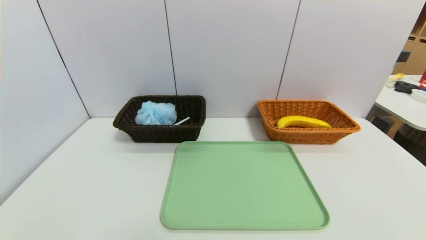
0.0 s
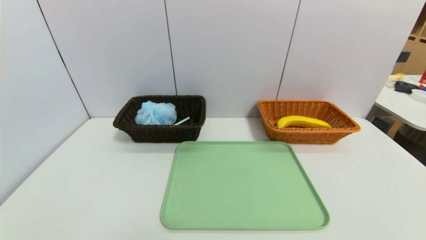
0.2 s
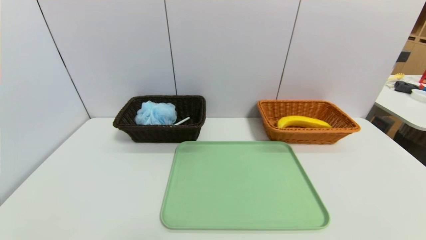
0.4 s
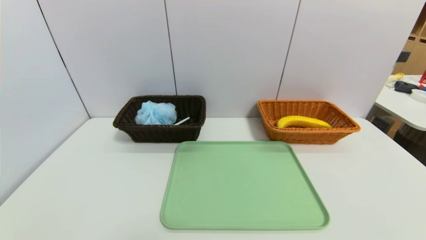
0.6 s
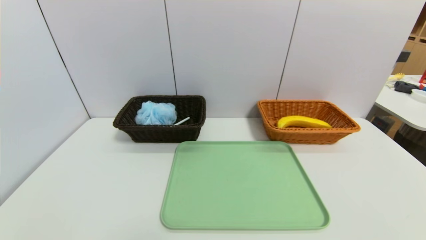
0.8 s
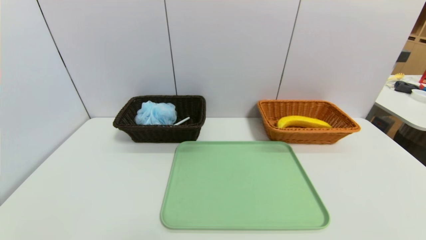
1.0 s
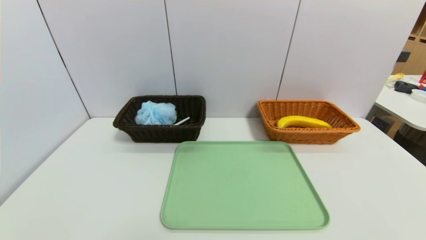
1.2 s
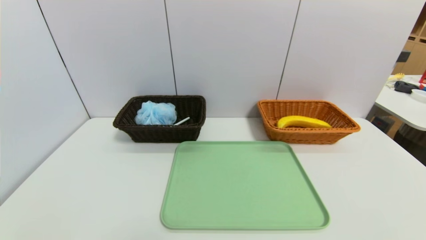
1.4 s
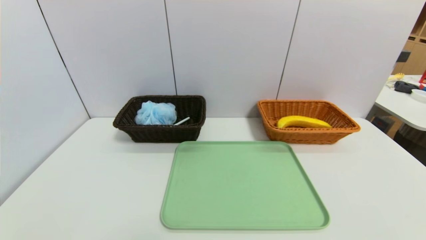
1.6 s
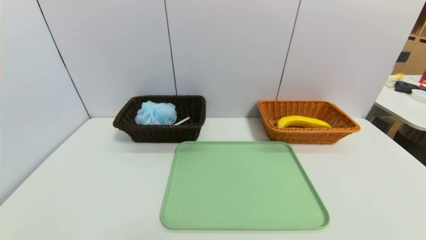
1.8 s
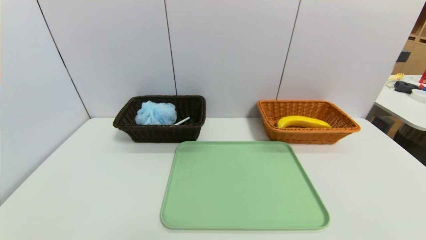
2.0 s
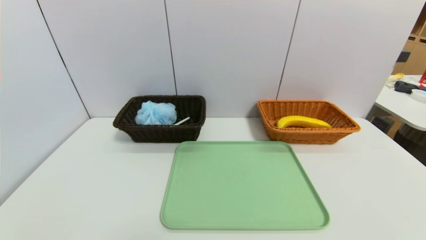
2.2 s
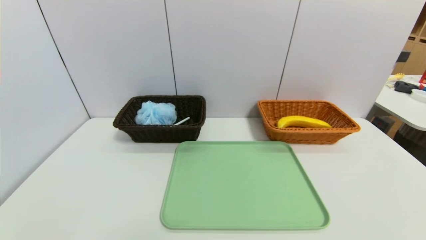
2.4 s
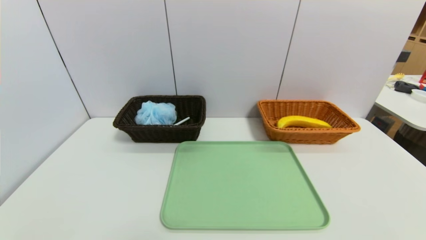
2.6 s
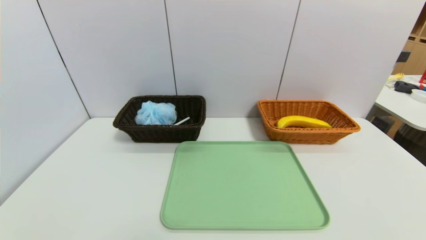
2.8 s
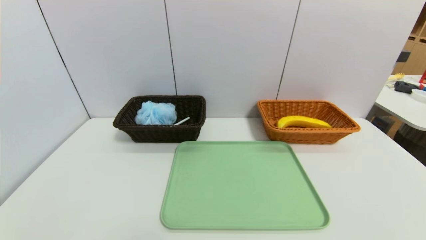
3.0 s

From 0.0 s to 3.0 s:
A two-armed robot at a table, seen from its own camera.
Task of the whole recording: place the food in the right basket with the right gripper, and place the non food items in the left basket with the left gripper.
From 0.0 s to 3.0 s: Both grippers stay about where they are.

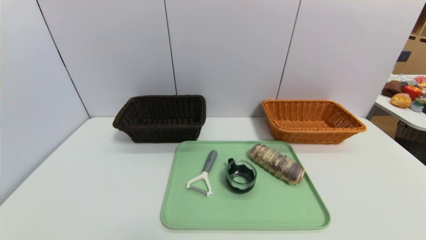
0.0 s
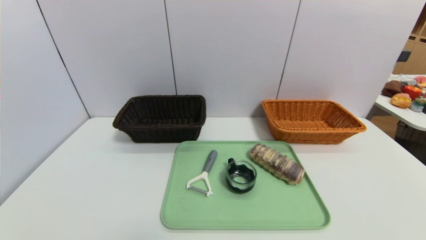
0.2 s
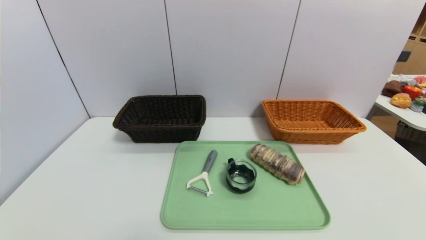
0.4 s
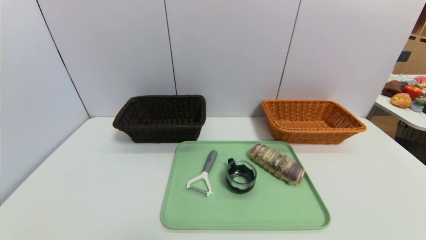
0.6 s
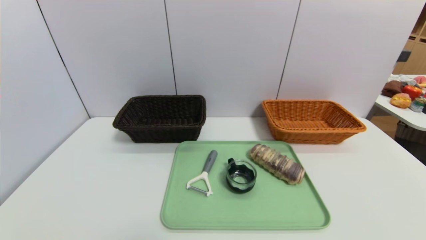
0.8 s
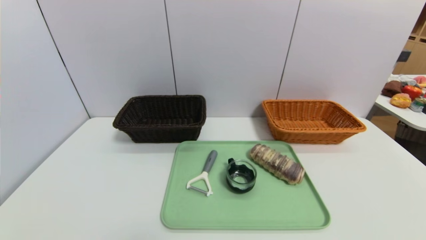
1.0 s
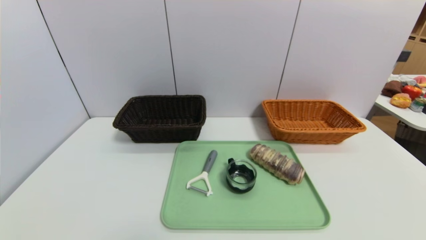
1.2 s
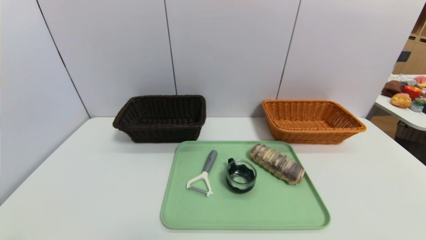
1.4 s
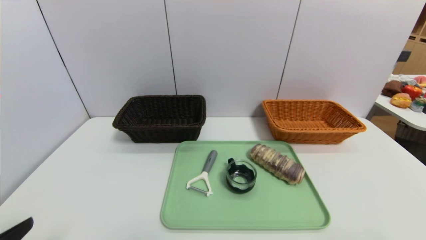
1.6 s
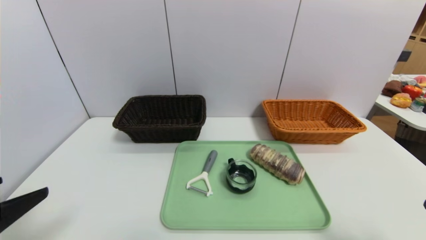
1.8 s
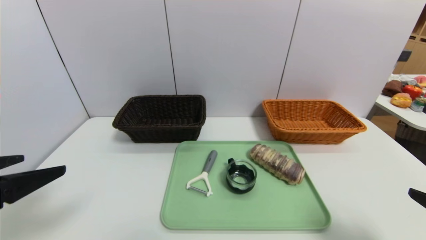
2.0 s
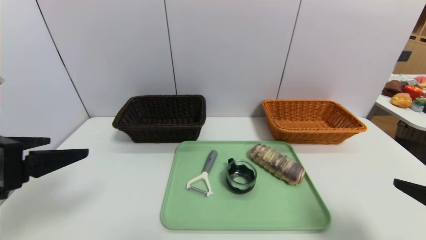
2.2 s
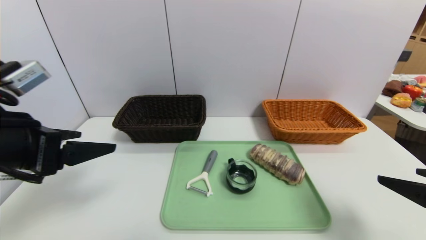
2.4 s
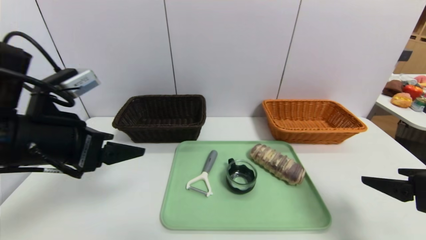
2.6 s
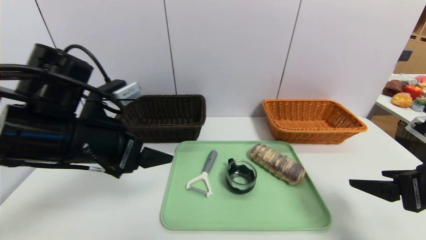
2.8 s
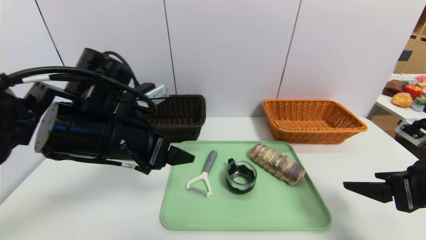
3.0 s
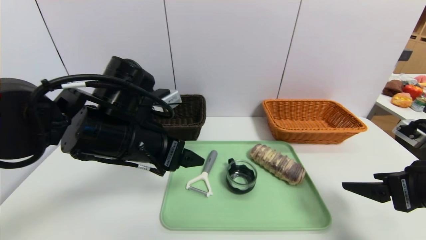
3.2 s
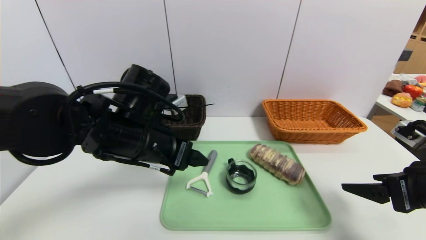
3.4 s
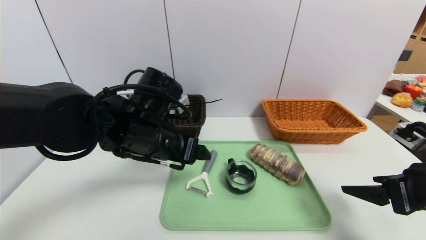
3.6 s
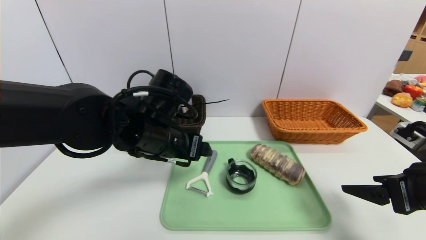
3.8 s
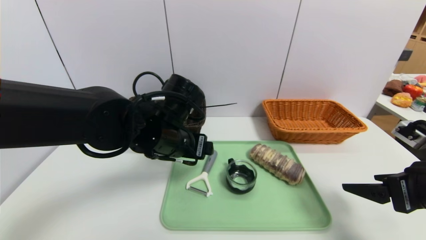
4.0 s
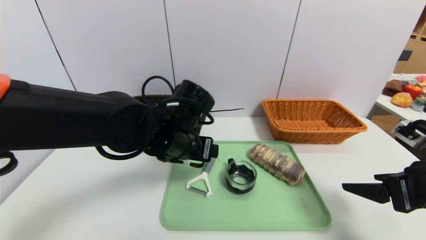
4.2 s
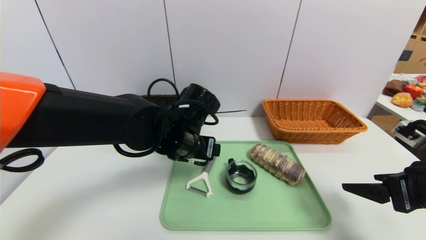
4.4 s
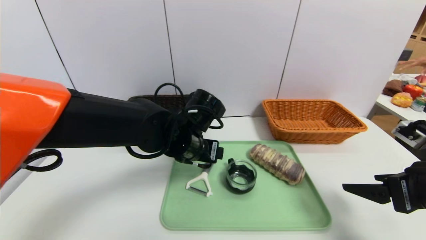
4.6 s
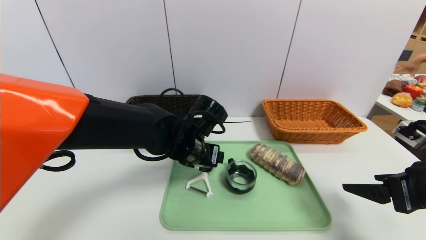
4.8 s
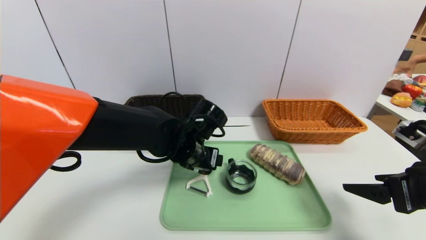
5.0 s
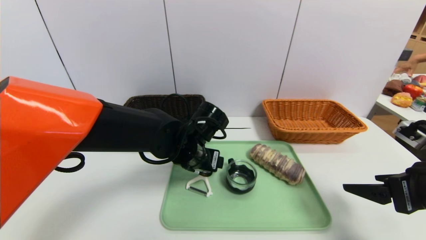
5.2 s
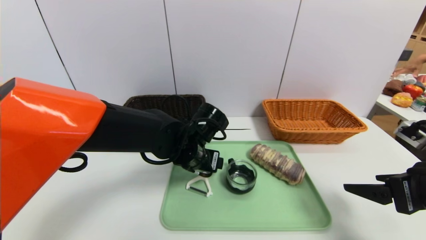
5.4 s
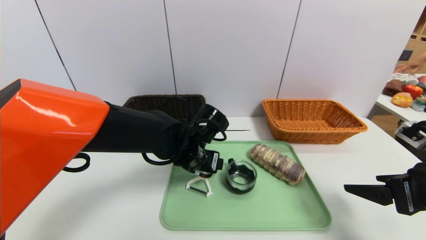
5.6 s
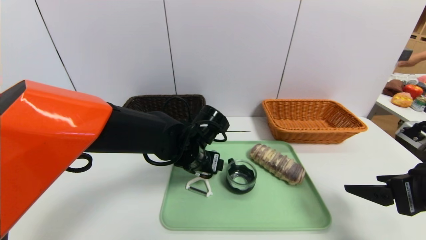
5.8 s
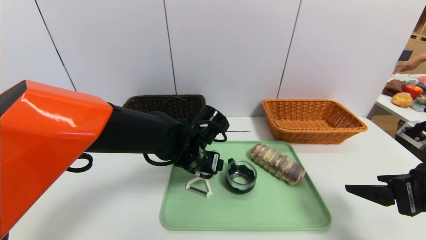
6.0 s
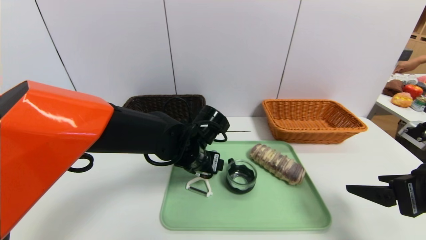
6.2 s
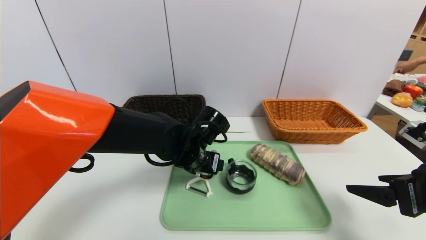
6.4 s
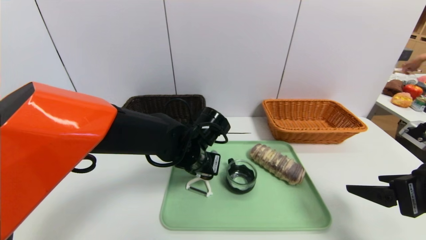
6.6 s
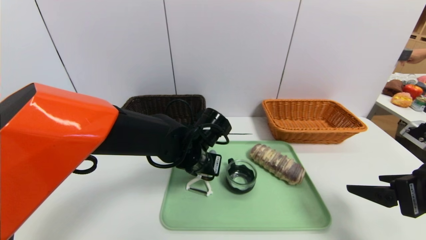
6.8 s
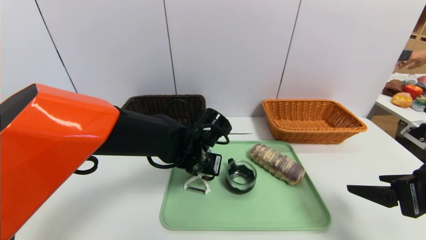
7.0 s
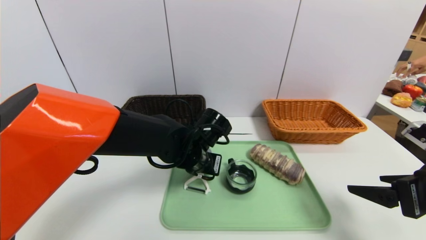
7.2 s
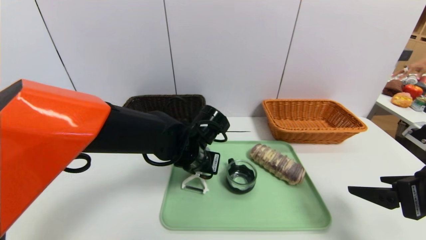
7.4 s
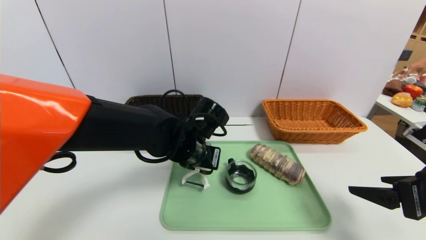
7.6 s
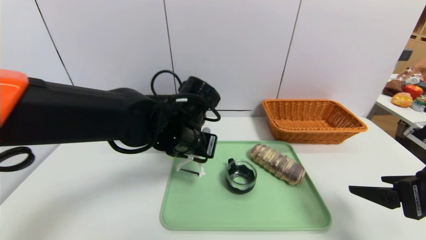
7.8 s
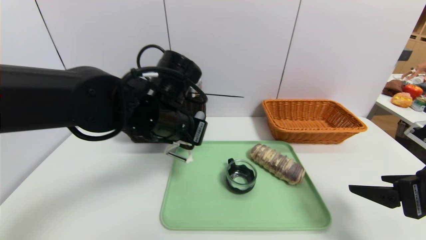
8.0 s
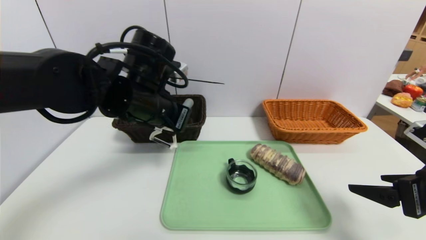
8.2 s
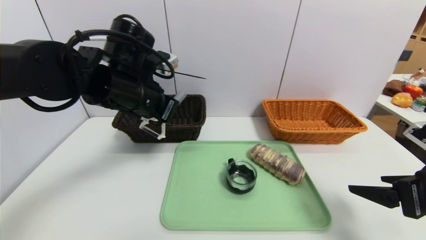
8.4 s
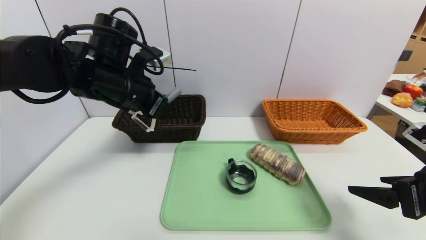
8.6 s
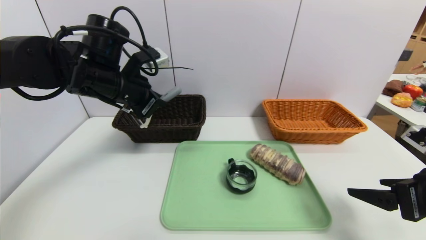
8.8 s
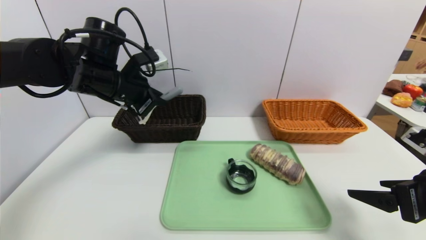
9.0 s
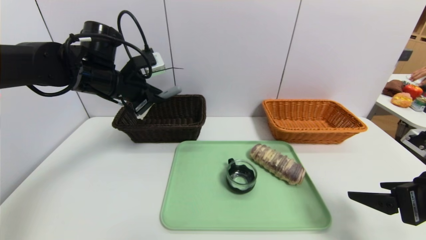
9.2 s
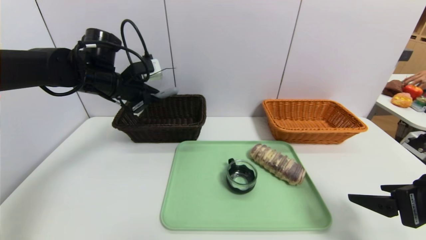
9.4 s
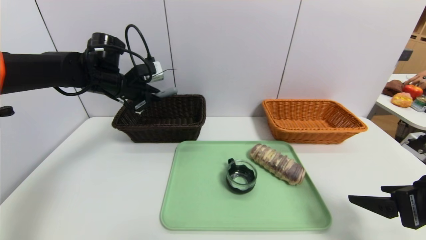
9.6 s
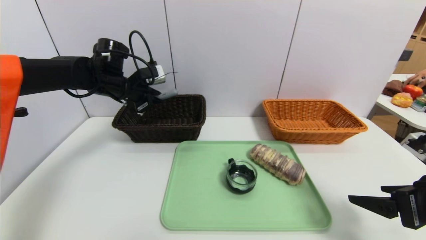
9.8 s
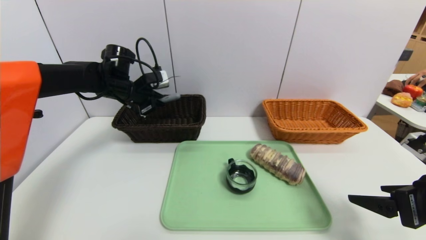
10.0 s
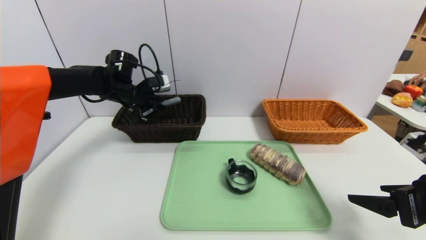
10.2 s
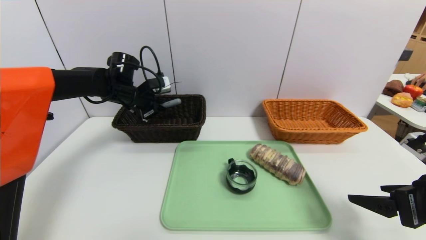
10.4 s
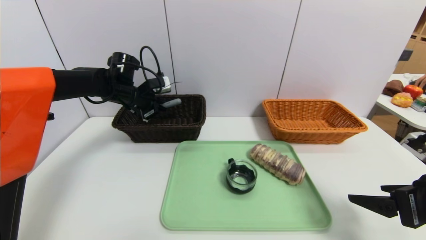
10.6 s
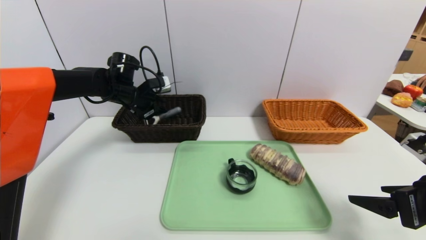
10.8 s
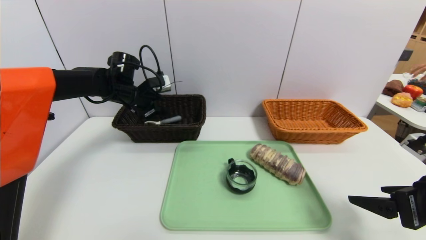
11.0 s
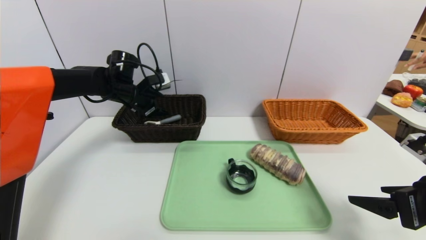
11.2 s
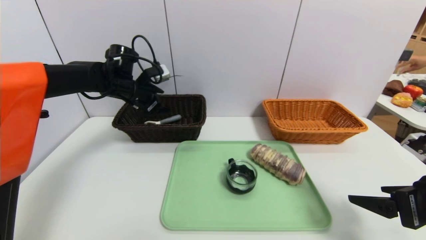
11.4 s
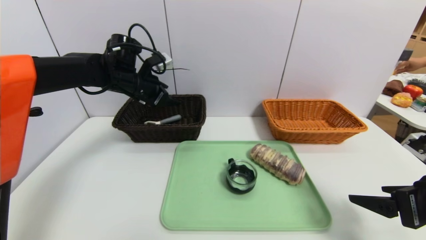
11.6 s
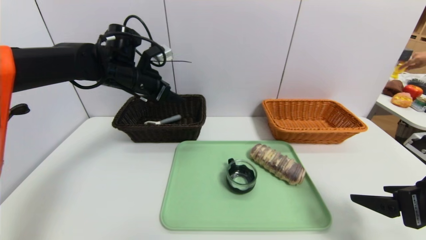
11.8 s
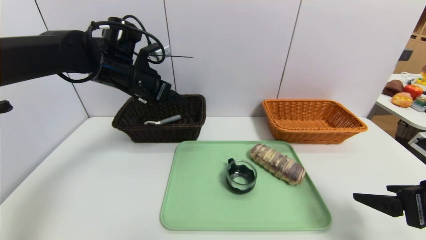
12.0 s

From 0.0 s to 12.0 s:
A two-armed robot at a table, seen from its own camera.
Task of the whole recording: place the food in the right basket with the right gripper, and place the non food items in the left basket with the left gripper.
Step, from 0.0 s to 11.0 s: Grasp the peeler and put it in the left basket.
From 1.6 s to 3.0 s: The right gripper goes about 15 cm forward; the left gripper heads forward and to the right, covering some 25 cm.
From 3.0 s to 4.4 s: The left gripper shifts roughly 15 cm to the right, forward and downward.
From 4.4 s to 6.0 s: The left gripper moves roughly 5 cm.
From 6.0 s to 7.6 s: The left gripper closes.
From 7.6 s to 9.0 s: The left gripper is displaced to the left and upward by some 20 cm.
From 9.0 s to 10.4 s: The left gripper is displaced forward and downward by roughly 15 cm.
From 10.4 s to 12.0 s: The left gripper is displaced backward and upward by roughly 10 cm, and opens.

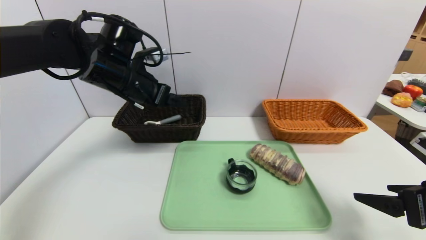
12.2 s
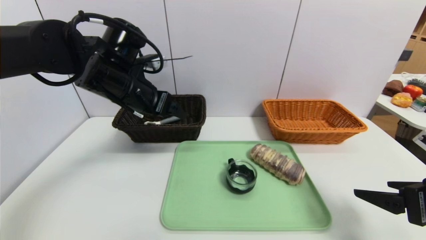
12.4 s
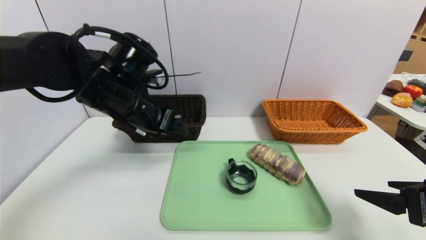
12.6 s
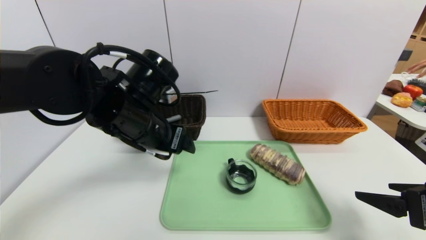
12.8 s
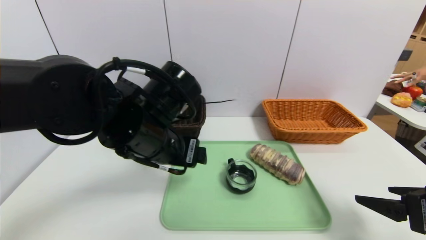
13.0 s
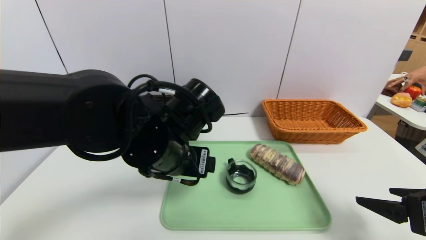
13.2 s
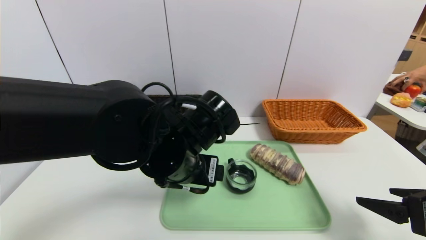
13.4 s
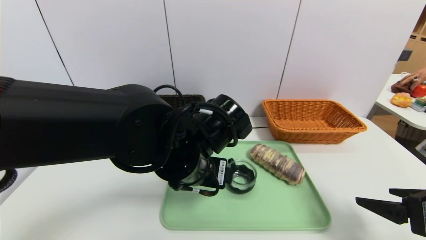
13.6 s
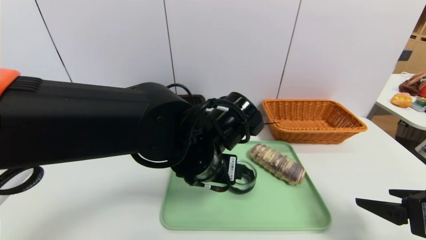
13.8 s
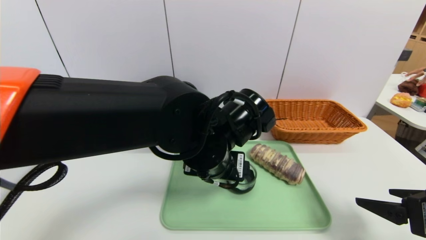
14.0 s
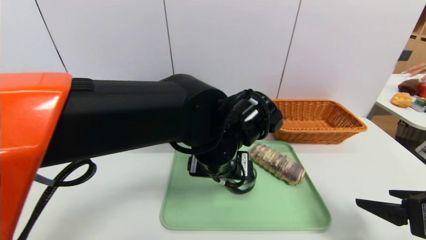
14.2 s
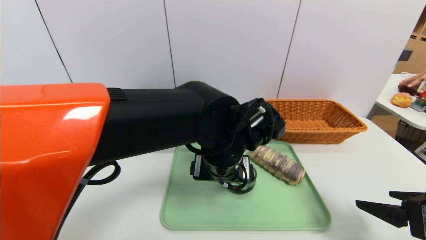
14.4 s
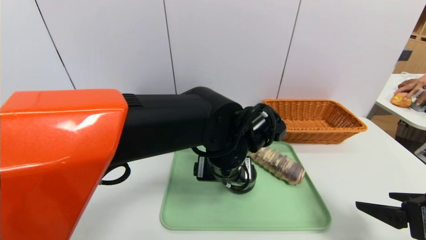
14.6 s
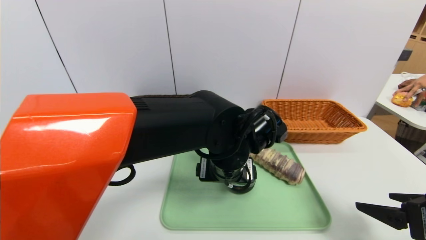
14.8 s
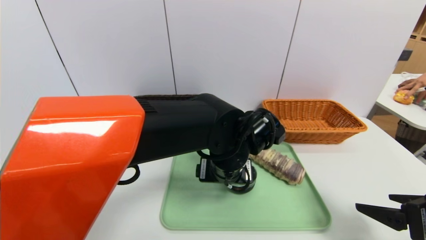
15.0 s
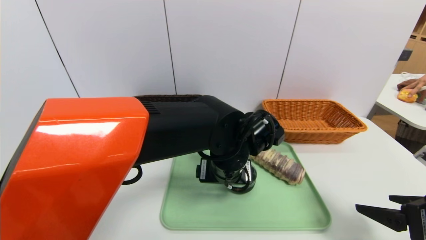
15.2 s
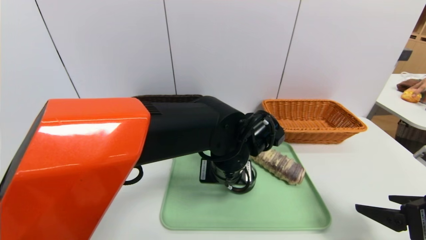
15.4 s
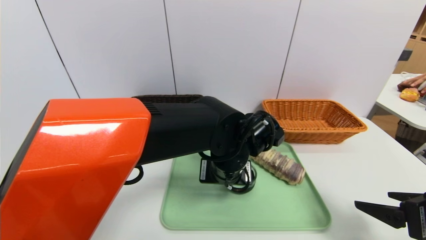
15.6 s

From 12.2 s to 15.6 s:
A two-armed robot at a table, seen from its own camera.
Task of the whole recording: place the food in the right basket with the right gripper, and place the non food items in the left basket with the left gripper.
From 12.2 s to 13.8 s: The left gripper travels to the right, backward and downward by approximately 20 cm.
From 13.8 s to 15.6 s: The left gripper ends up roughly 5 cm from where it was, and closes.
